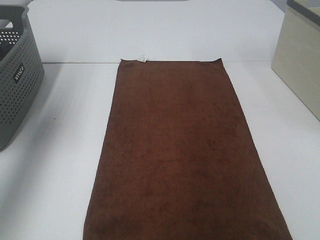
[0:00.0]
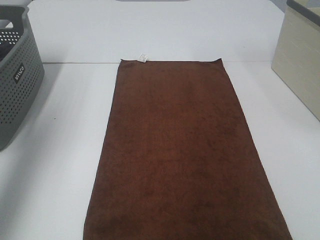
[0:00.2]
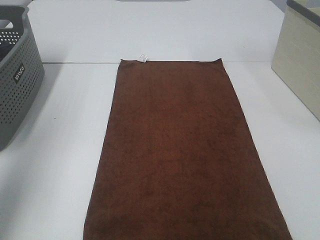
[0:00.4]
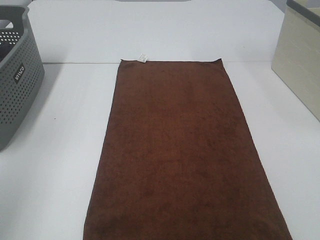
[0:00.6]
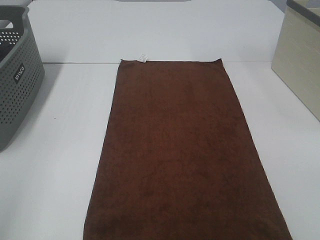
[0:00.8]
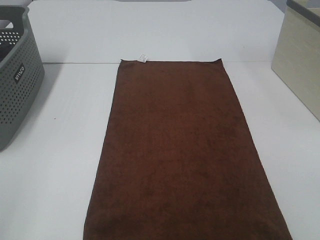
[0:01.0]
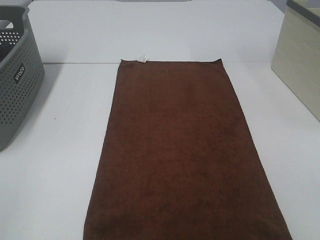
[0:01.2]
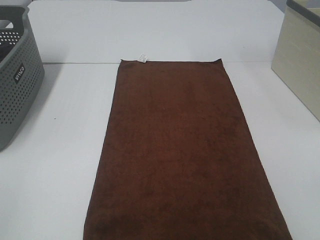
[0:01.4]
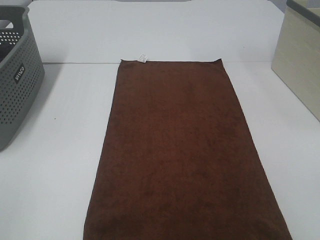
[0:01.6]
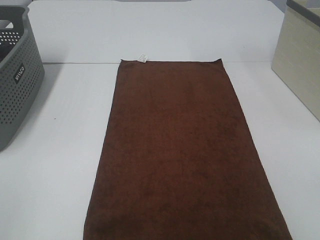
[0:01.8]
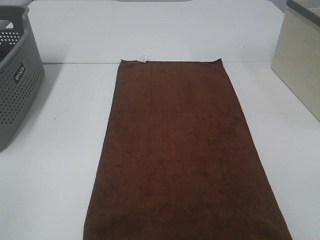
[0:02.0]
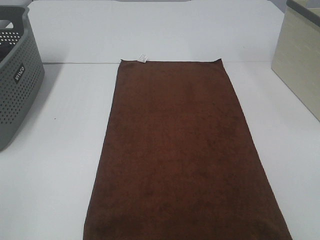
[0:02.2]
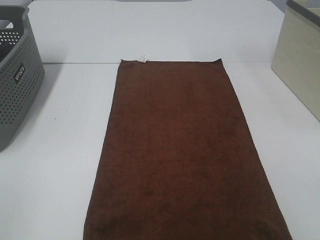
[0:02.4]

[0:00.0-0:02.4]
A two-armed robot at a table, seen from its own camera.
Task of the whole recording: Remove the towel and place it.
0:00.0 to 0:01.2: The left gripper travels backward by some 35 cm.

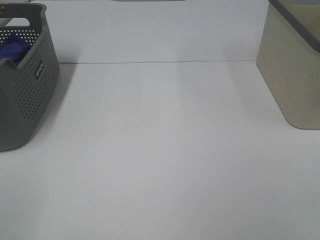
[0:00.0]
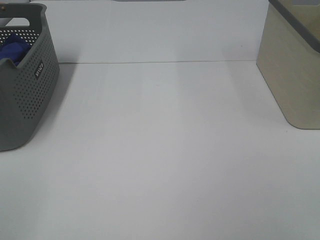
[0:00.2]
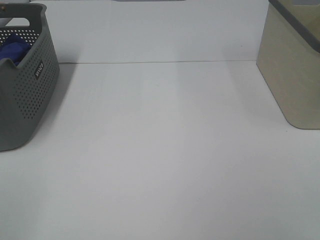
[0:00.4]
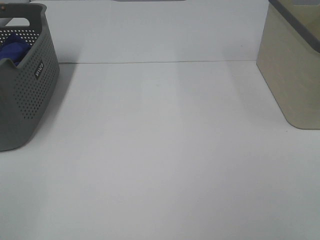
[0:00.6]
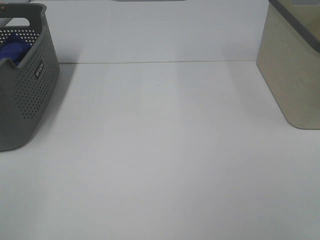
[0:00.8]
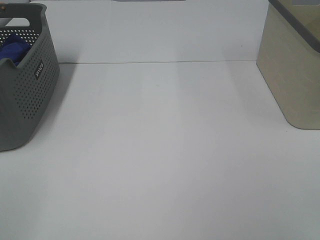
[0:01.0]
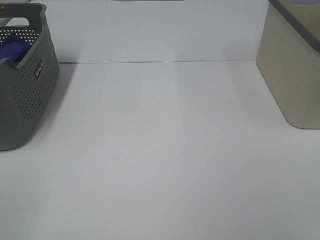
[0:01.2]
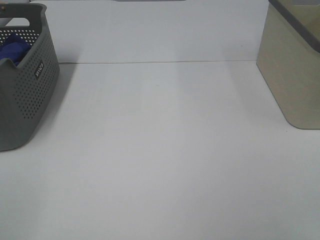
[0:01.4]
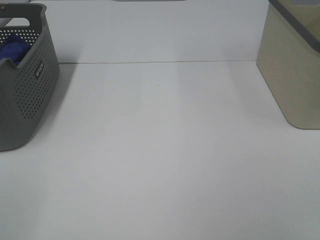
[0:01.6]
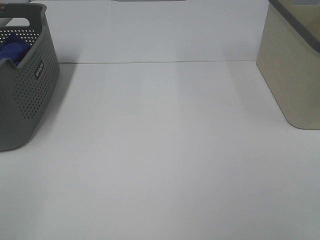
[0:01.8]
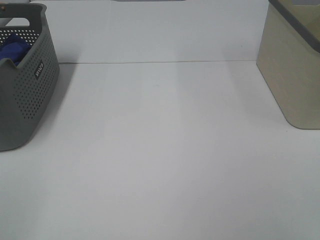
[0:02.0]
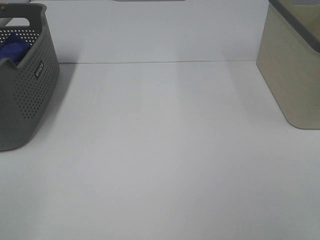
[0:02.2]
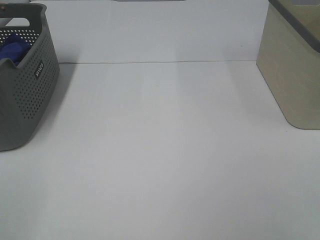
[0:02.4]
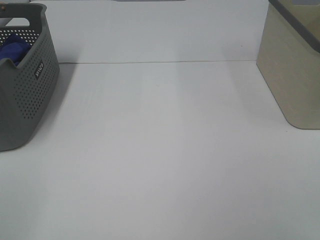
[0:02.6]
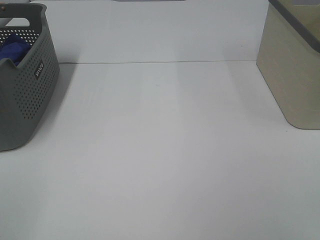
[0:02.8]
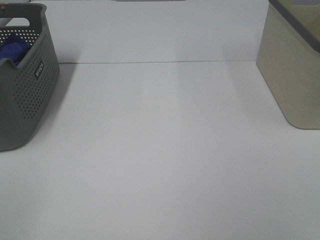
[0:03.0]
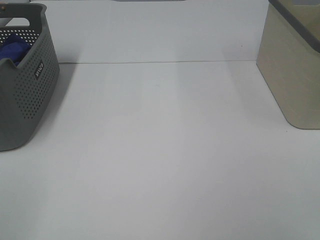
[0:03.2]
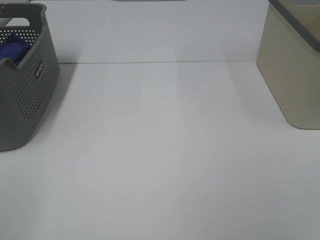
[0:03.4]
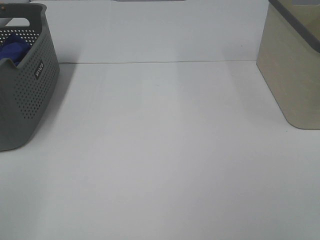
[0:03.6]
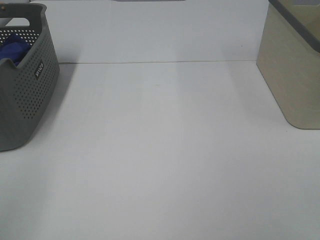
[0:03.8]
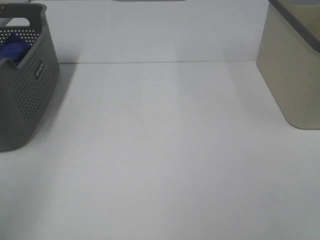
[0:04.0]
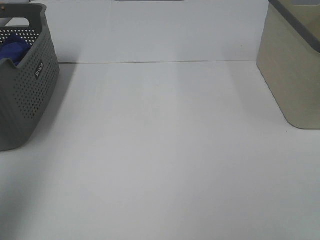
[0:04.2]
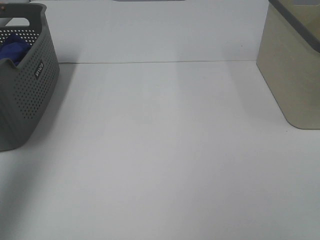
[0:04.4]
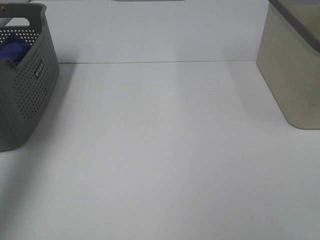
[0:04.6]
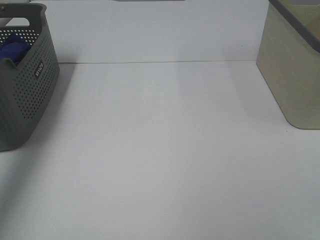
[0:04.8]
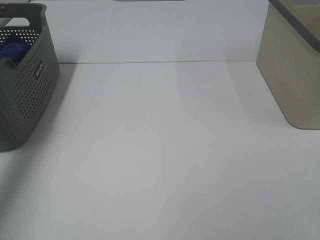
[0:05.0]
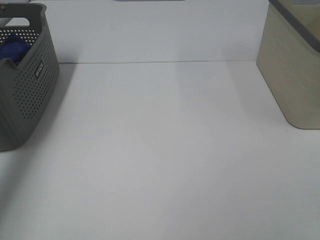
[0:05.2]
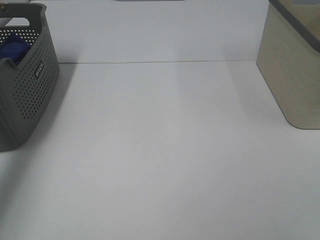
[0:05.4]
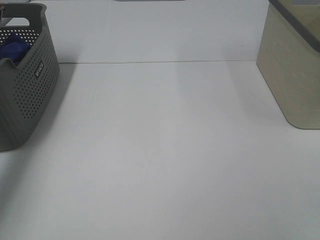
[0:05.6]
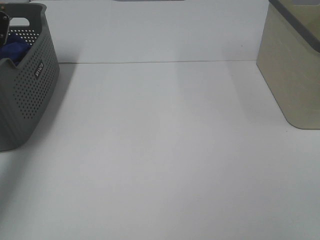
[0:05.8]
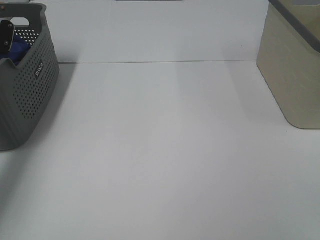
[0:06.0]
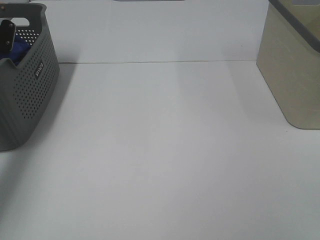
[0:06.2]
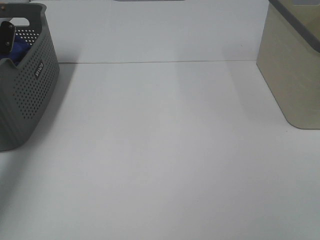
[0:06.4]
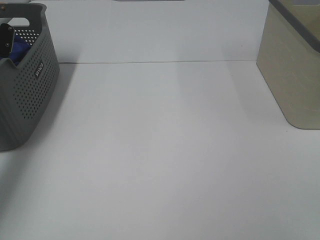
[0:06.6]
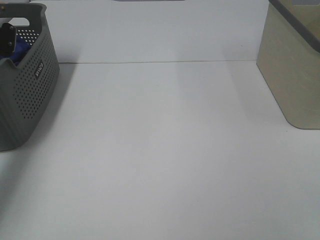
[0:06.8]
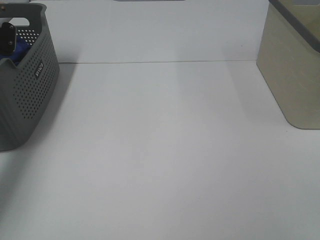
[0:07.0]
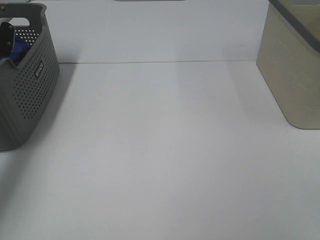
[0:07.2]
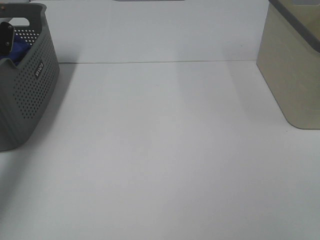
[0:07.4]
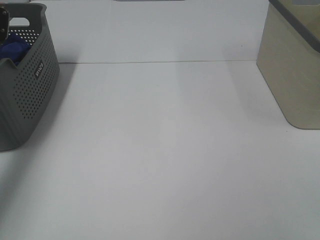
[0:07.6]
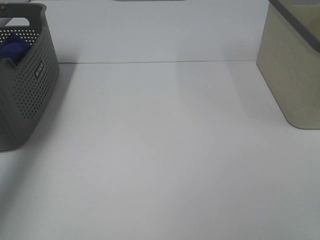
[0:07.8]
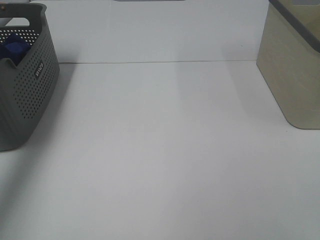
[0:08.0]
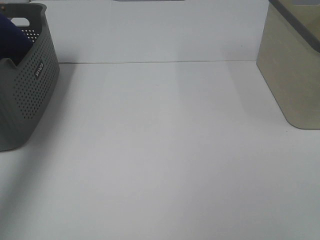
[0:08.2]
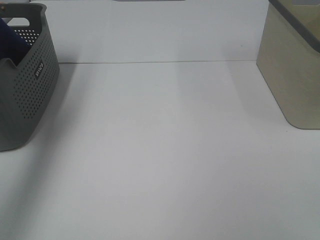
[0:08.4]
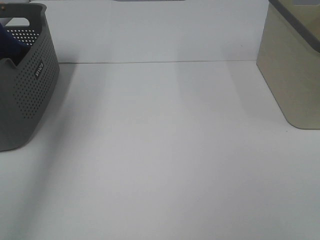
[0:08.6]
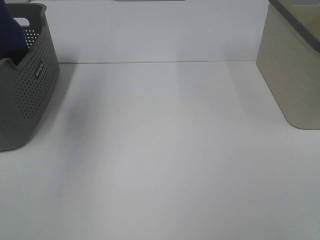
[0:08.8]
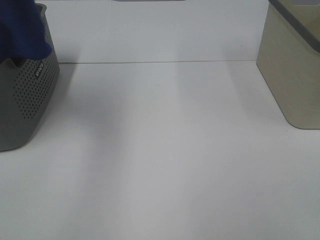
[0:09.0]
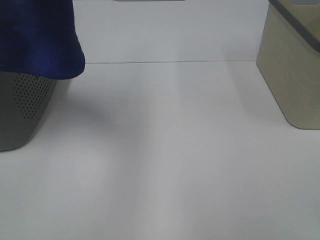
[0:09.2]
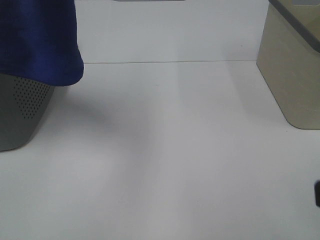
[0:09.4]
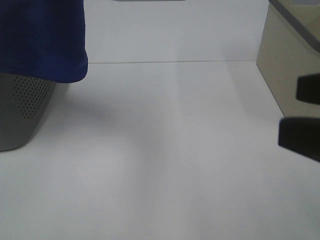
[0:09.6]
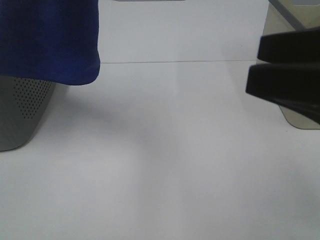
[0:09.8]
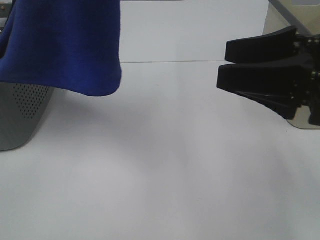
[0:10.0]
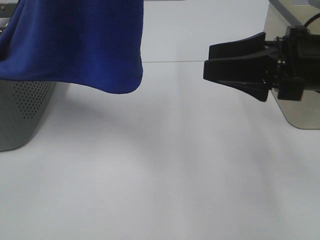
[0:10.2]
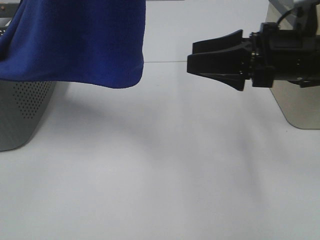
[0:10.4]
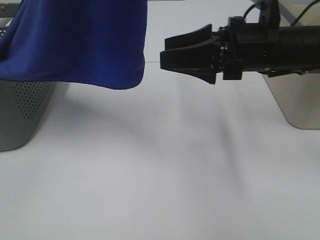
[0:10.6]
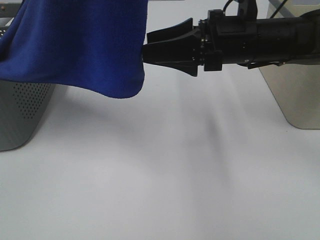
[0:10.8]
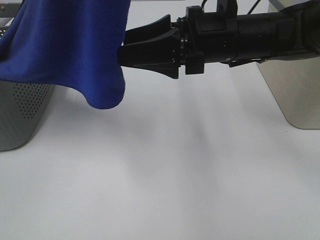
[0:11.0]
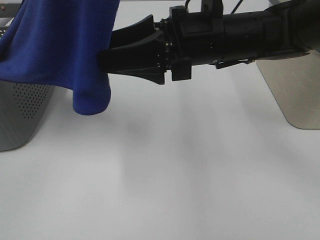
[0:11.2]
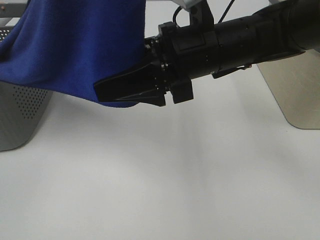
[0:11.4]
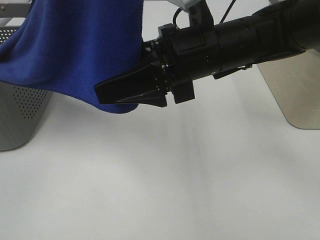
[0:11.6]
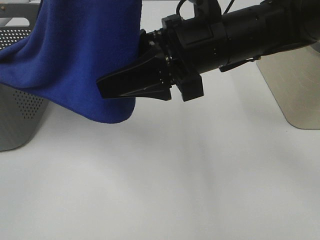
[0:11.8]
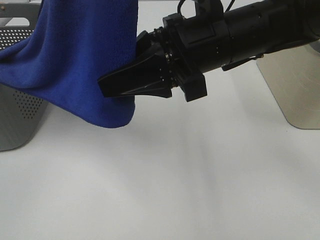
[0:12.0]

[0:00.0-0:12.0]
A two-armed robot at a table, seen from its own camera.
Task of the whole recording: Remove the towel and place it.
0:00.0 to 0:03.0: Both grippers stay about where they are.
0:03.0 to 0:04.4: The left gripper shifts roughly 30 cm forward and upward.
0:04.4 to 0:06.0: The left gripper moves downward and forward, approximately 30 cm.
0:07.6 to 0:09.0: The left gripper travels upward, backward and to the right by about 40 cm.
0:09.0 to 0:10.4: The right gripper moves forward, some 30 cm, while the left gripper goes approximately 10 cm to the right and backward.
0:10.4 to 0:12.0: The right gripper shifts approximately 10 cm to the left, and closes up.

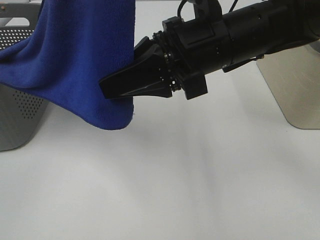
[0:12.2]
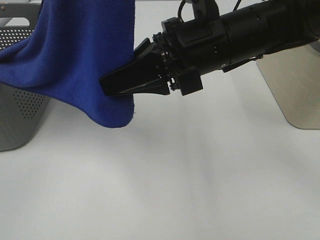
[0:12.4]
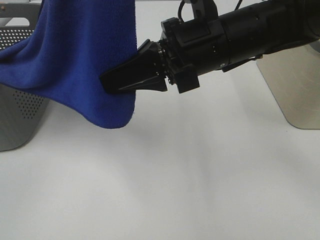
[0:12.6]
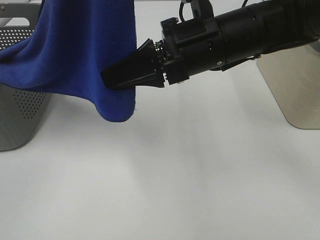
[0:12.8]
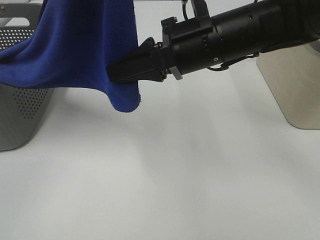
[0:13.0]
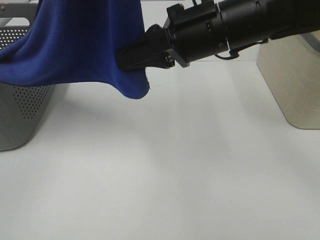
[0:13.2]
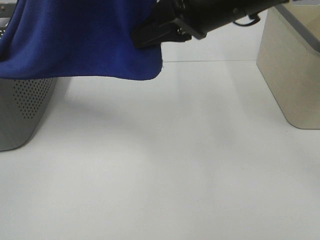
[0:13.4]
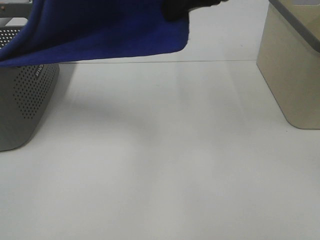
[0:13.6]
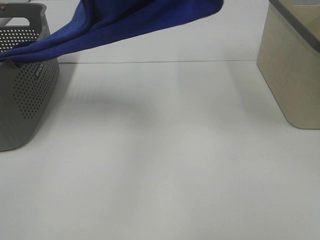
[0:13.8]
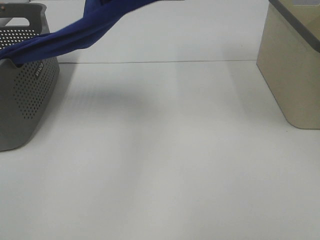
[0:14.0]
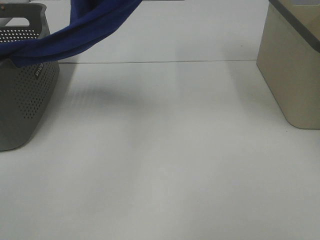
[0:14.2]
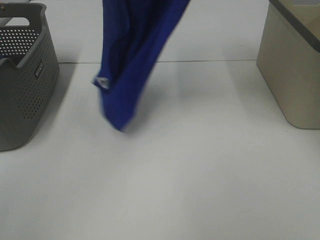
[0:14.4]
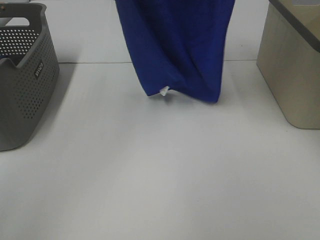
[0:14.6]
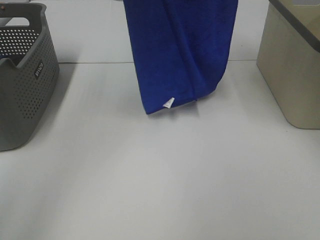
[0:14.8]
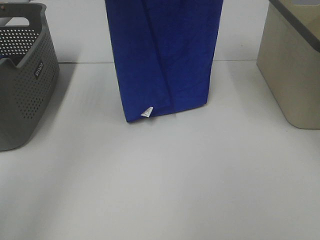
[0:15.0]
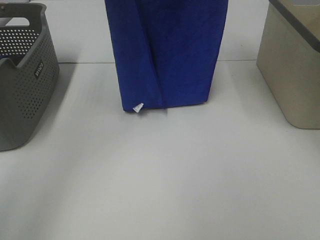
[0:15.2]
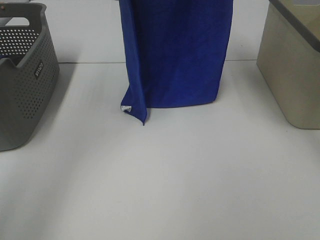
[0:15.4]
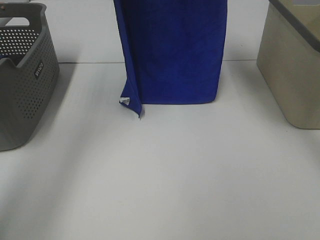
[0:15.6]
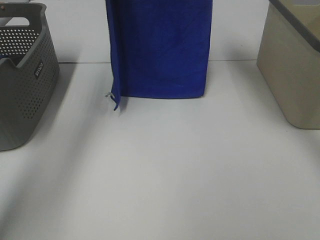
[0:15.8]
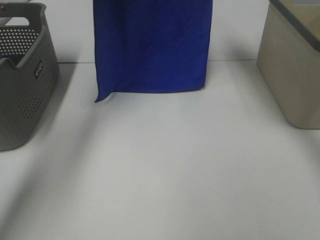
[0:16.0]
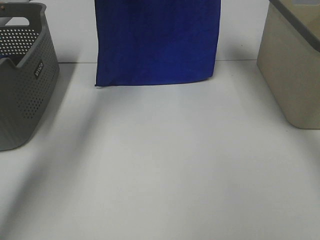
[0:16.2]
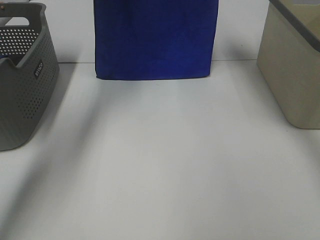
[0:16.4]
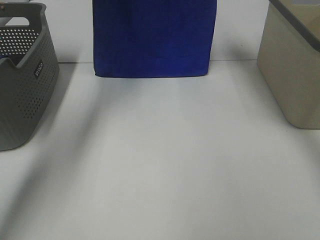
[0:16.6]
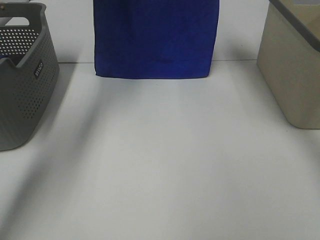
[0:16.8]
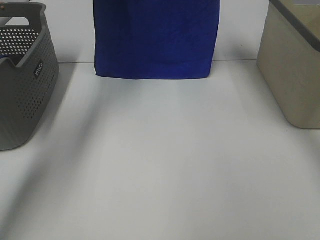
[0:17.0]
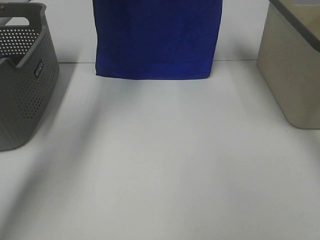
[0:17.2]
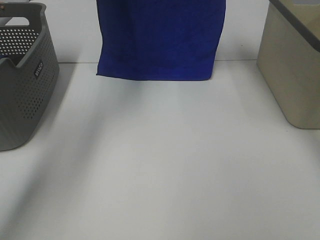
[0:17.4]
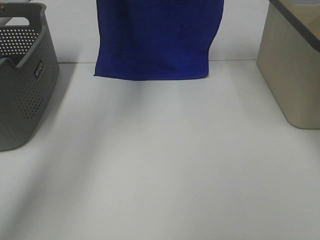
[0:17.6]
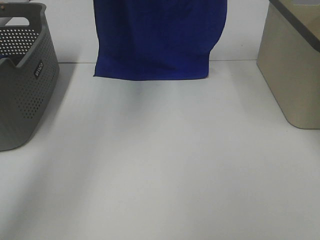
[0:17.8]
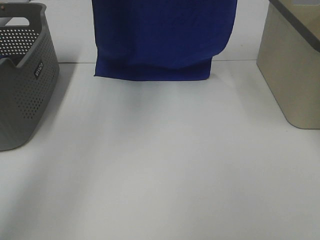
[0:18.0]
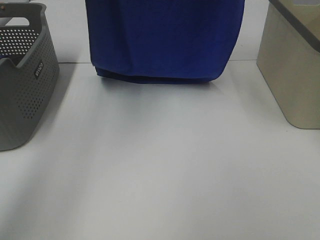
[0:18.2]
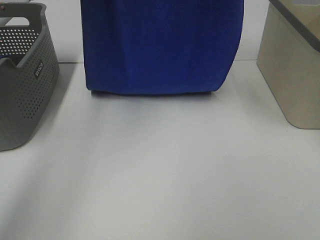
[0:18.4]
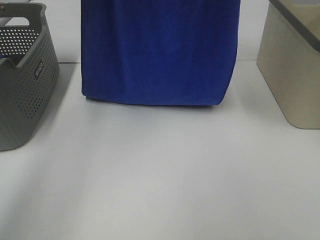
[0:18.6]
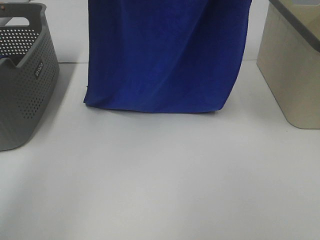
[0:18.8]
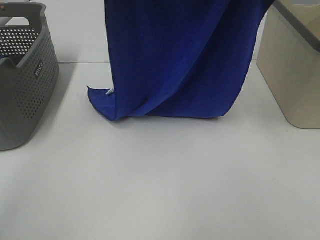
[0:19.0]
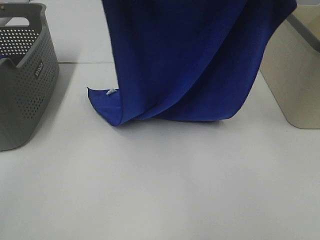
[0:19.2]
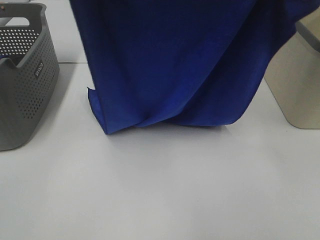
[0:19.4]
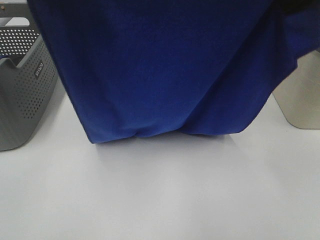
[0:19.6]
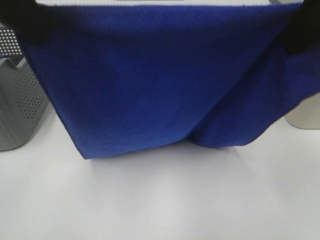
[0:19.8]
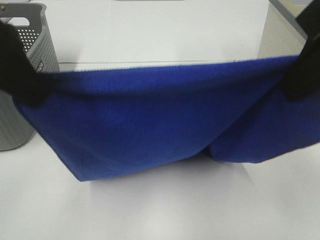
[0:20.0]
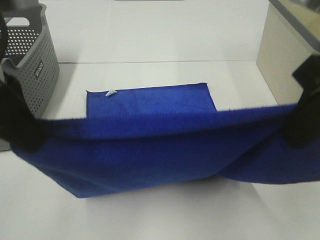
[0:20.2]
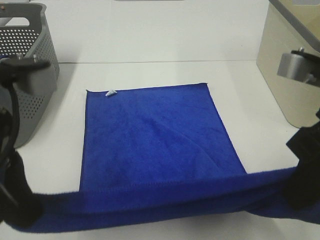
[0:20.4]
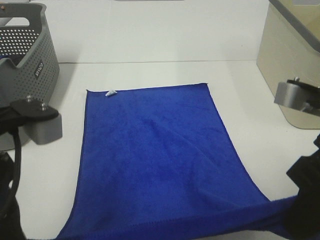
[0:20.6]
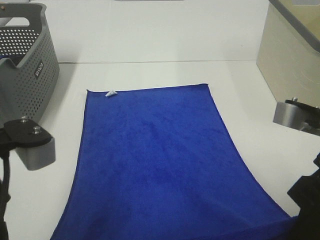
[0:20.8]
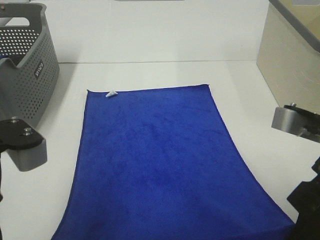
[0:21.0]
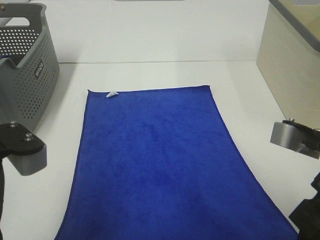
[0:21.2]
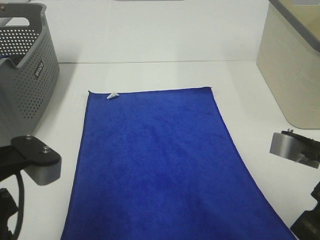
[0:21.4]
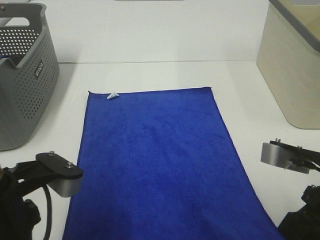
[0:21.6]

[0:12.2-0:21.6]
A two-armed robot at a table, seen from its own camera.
Task of the whole recording: Remove the towel and place it.
Step, 0:13.0 to 0:18.2: Left hand: spread the blue towel flat on the table.
Step, 0:13.0 to 0:18.2: Right hand: spread the blue towel flat on the table.
0:12.2 to 0:13.8: The left gripper shifts by approximately 5 cm. The right gripper shifts some 15 cm upward, and closes its fingers.
0:13.8 to 0:15.4: The right gripper moves forward and upward, roughly 10 cm, while the left gripper shifts approximately 15 cm forward and downward.
0:15.4 to 0:17.0: The grippers both shift forward by approximately 10 cm.
0:17.0 to 0:18.4: Both grippers move backward and upward, about 15 cm.
0:18.4 to 0:20.0: Both grippers move backward and downward, some 25 cm.
0:20.0 to 0:21.6: The two grippers go roughly 15 cm downward.
